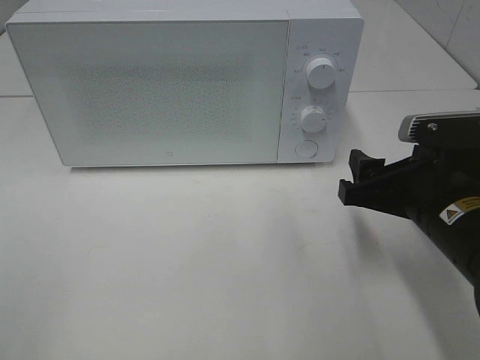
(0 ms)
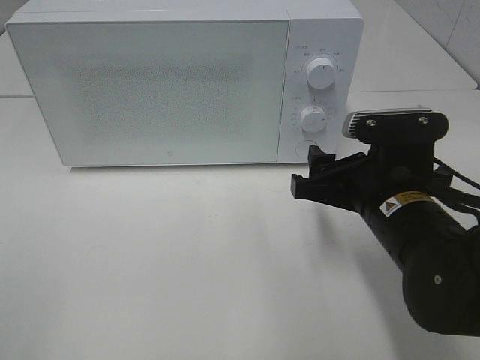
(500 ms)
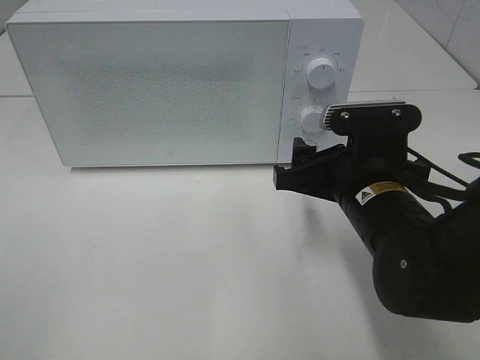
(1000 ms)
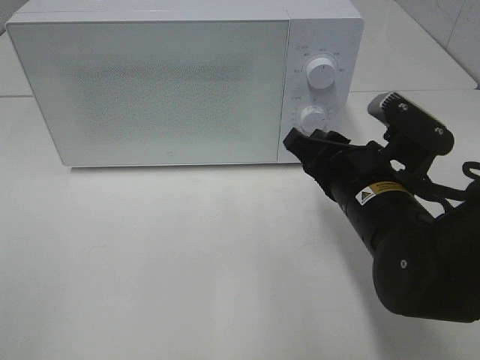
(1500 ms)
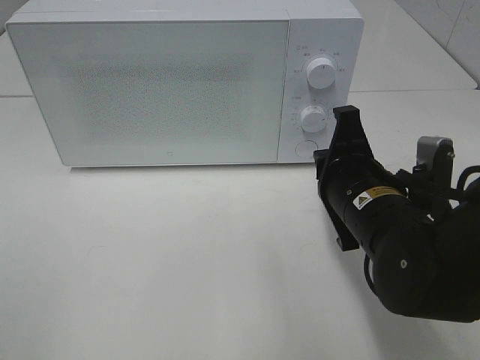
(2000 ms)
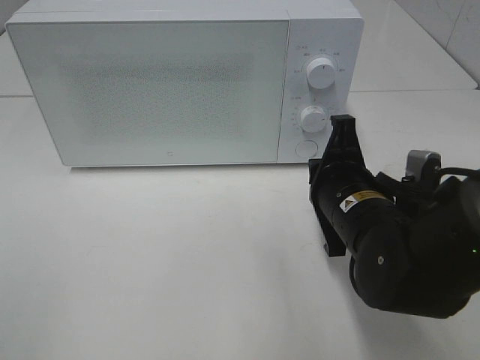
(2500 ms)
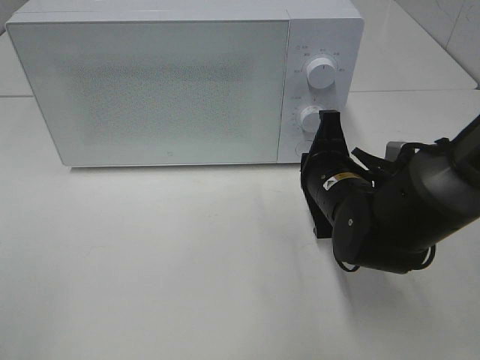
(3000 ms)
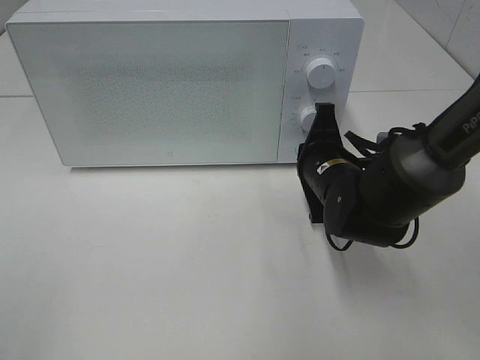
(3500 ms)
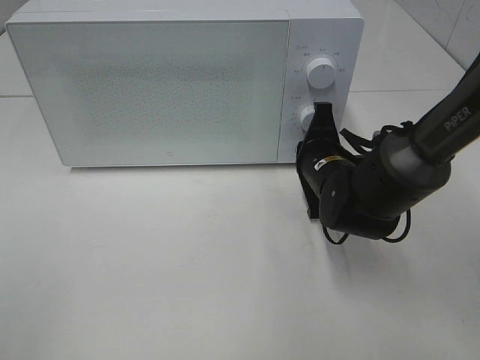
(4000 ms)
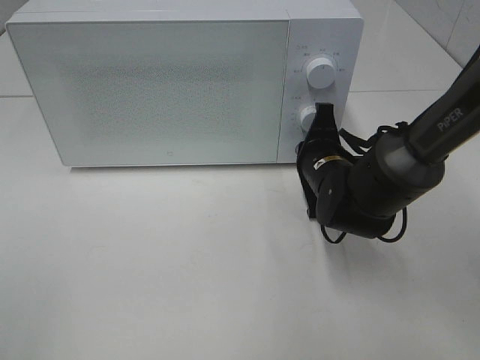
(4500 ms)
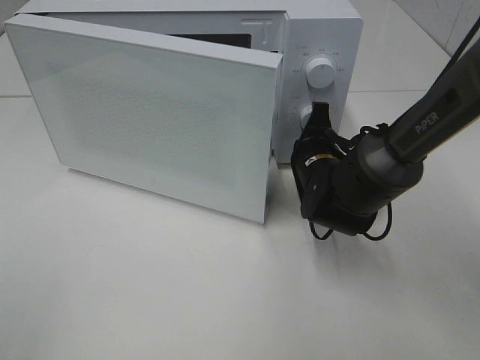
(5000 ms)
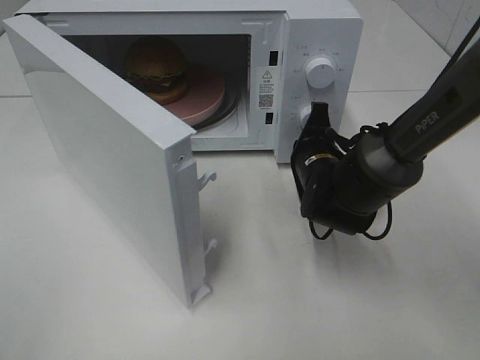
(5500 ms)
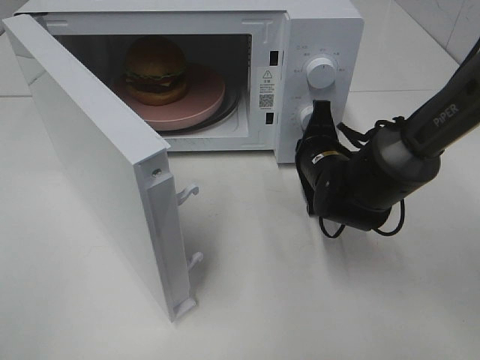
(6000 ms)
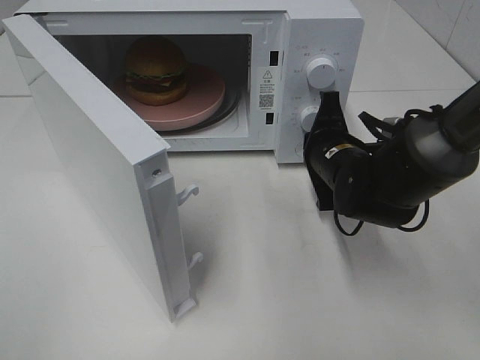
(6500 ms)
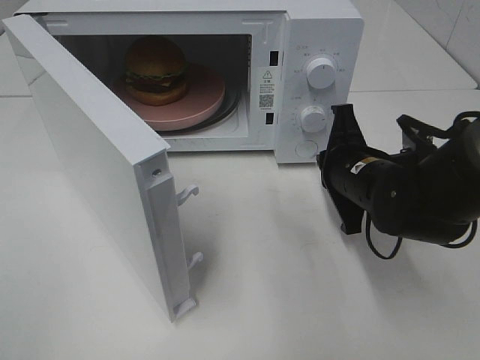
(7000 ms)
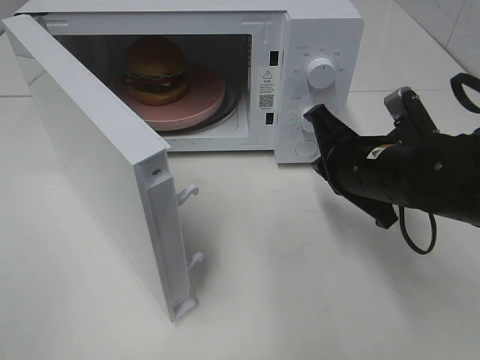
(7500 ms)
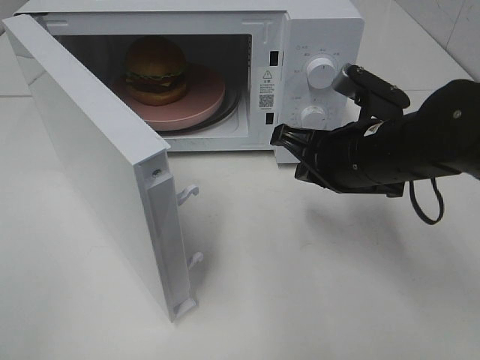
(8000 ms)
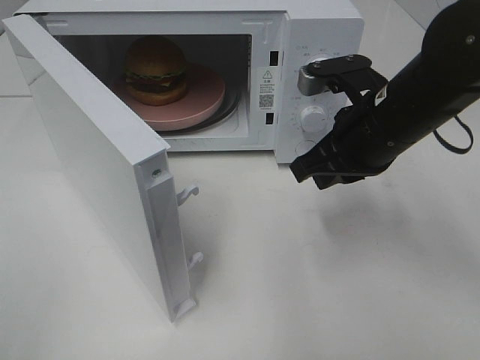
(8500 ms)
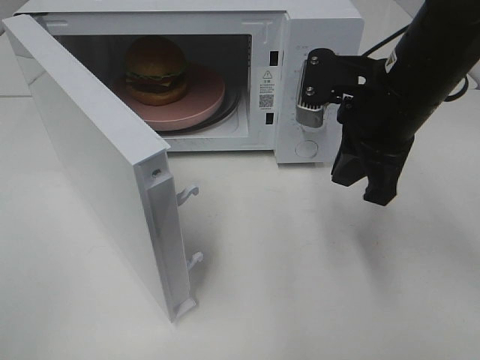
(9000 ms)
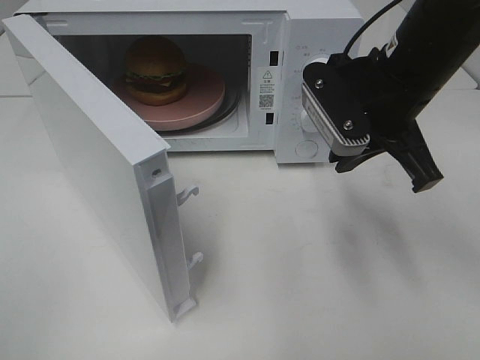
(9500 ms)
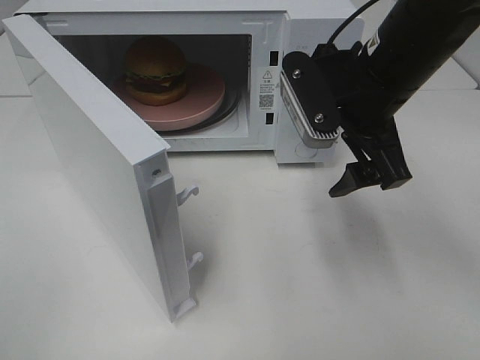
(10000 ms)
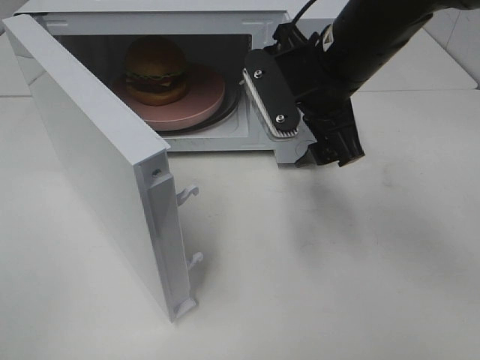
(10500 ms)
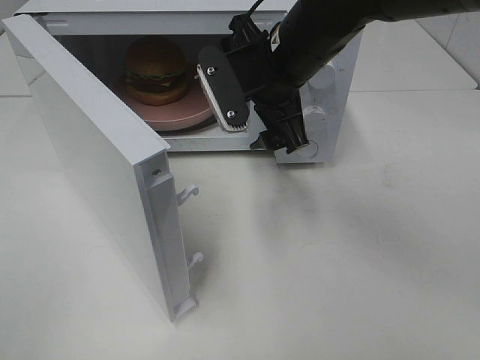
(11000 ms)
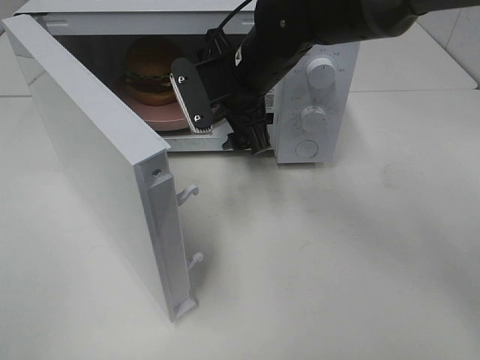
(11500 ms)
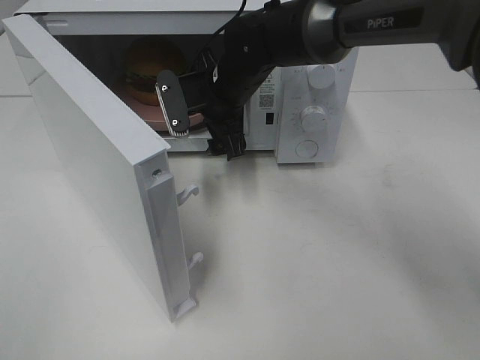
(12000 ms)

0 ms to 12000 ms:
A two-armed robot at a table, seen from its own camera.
Task of the whole recording: Heat the burger.
Step, 0 ms to 7000 ms: Right hand: press the switch.
0 ms to 2000 ms: The right gripper moves to the left, some 5 cm, and closes its fingers.
2000 ms to 4000 ms: The right gripper is displaced forward and downward by approximately 10 cm.
6000 ms to 8000 ms: The right gripper heads upward and backward, covering some 10 cm.
8000 ms to 10000 ms: The right gripper travels upward by about 10 cm, and opens its fingers.
10000 ms to 12000 ms: The right gripper travels to the left, forward and downward by some 20 cm.

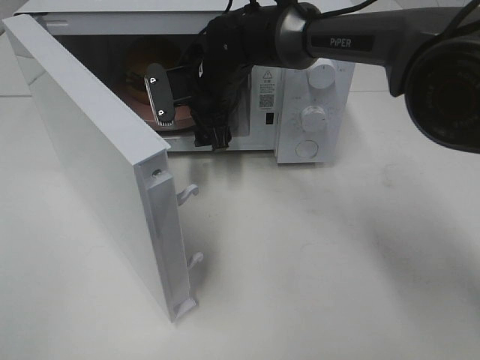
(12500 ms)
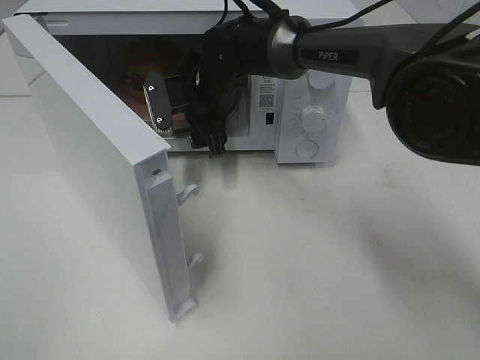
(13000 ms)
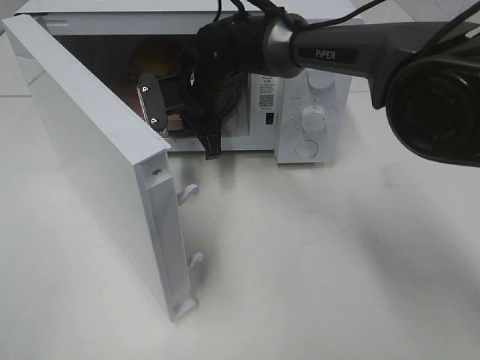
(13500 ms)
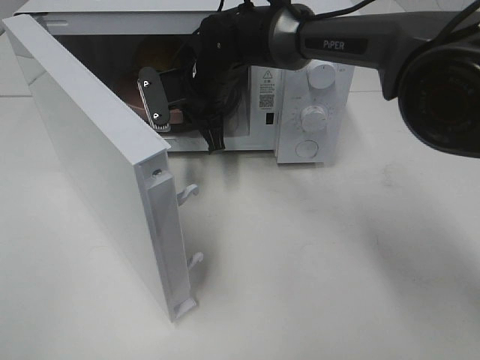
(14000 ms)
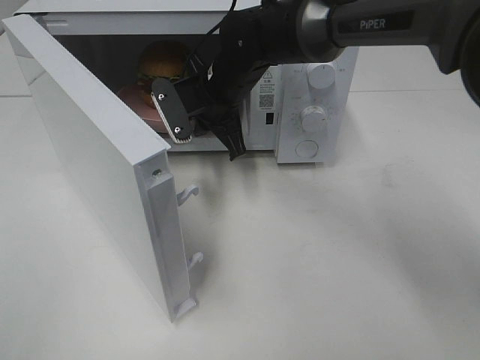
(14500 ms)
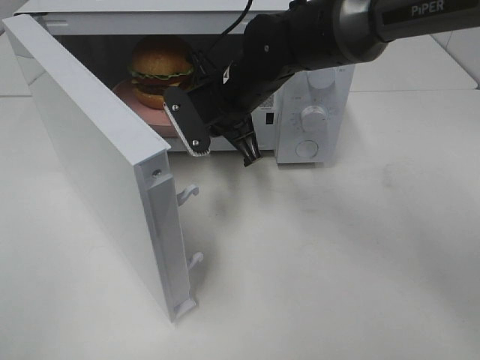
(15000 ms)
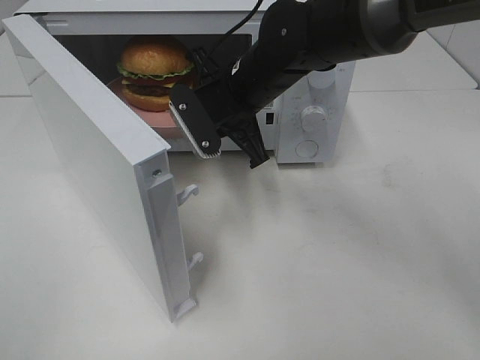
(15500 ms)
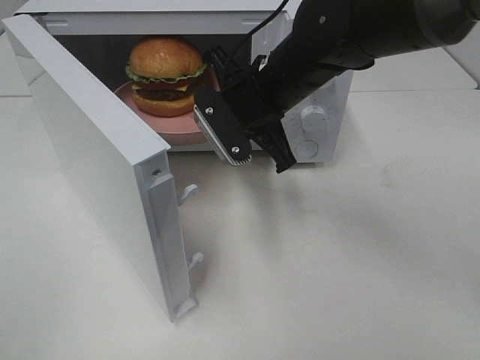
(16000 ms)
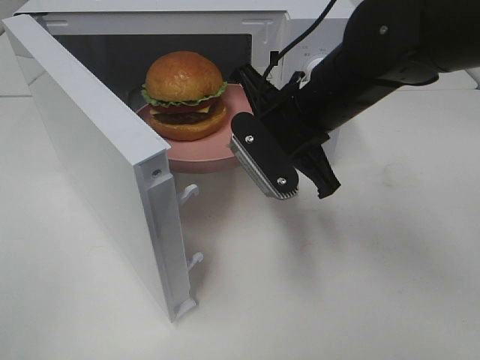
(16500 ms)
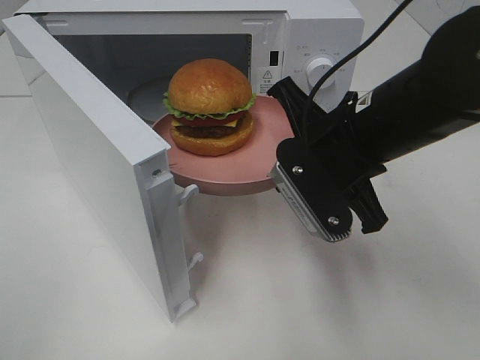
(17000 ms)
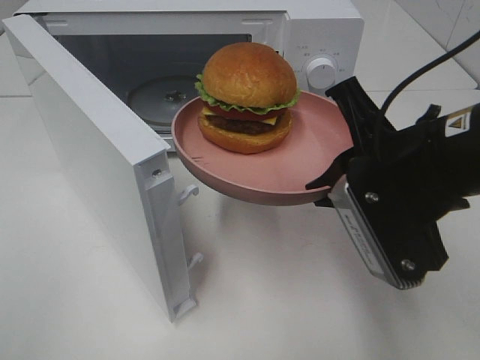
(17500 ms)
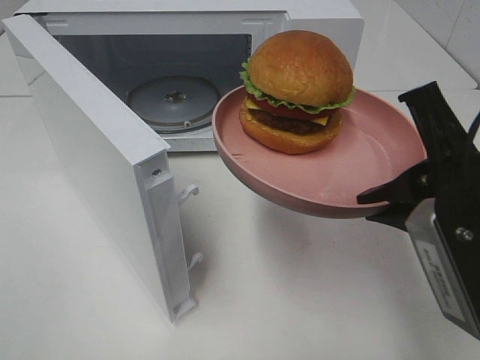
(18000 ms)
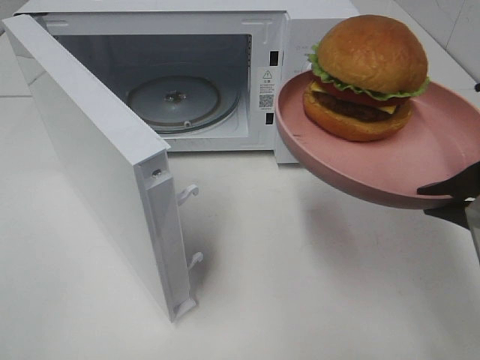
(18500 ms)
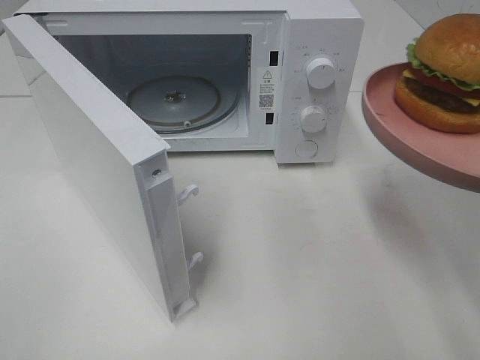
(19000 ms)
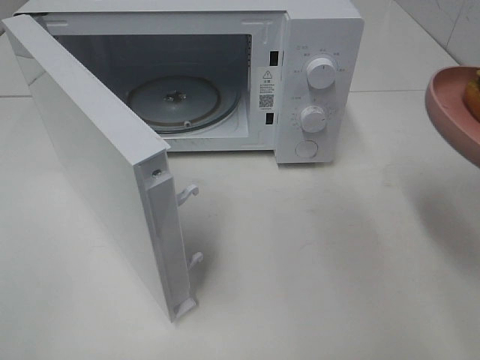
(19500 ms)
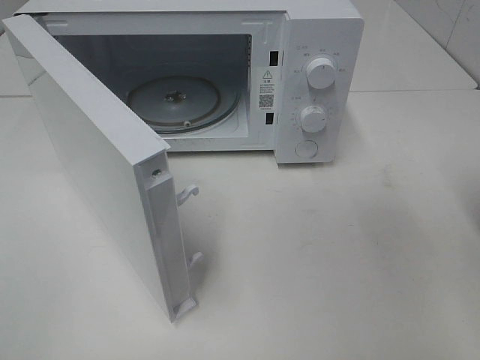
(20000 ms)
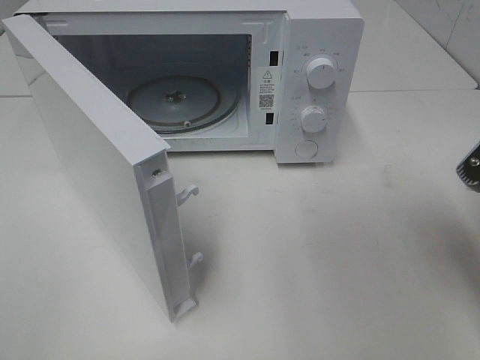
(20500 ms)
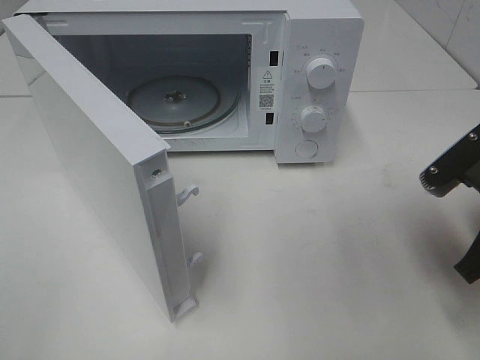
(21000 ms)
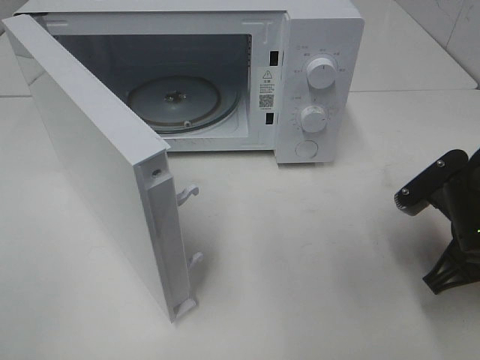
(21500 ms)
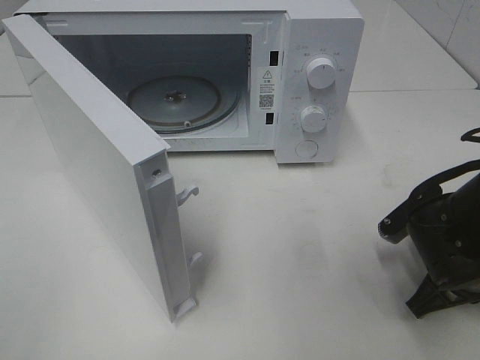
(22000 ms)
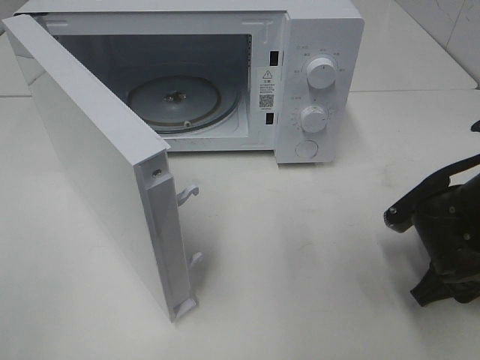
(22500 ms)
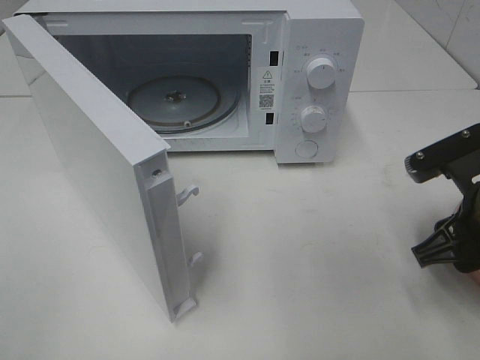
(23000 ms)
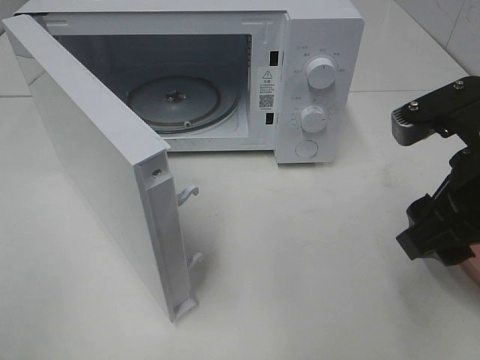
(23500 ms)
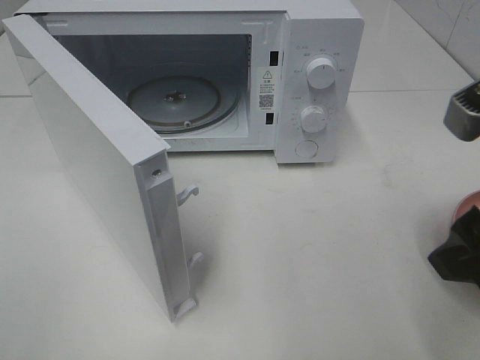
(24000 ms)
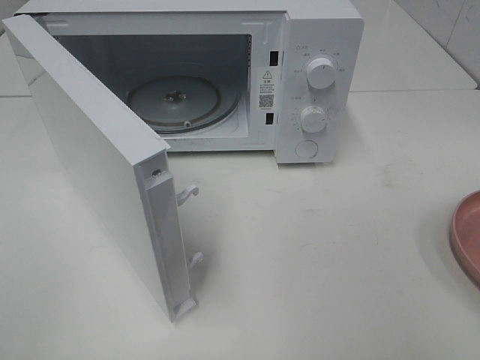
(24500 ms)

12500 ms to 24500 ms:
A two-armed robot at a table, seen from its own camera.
Task of the whole recording: Heat the burger.
Step, 14000 ms to 22500 ms: Right hand: place the plate on the table.
12500 ms to 14500 ms: The right gripper closes up.
14500 ms to 16500 ms: The right gripper is displaced backward and to the right by some 15 cm.
16500 ms to 18500 ms: The right gripper travels backward and to the right by approximately 20 cm.
18500 ms to 20500 ms: The right gripper moves downward, some 5 cm.
20500 ms to 22500 ms: The right gripper shifts approximately 10 cm downward, and opens its fingers.
22500 ms to 24500 ms: The right gripper moves upward and backward, approximately 25 cm.

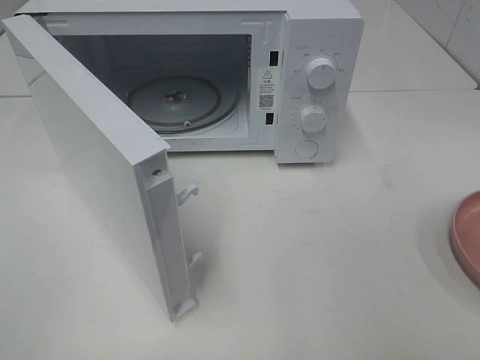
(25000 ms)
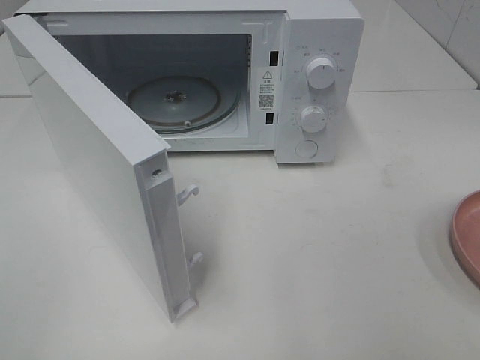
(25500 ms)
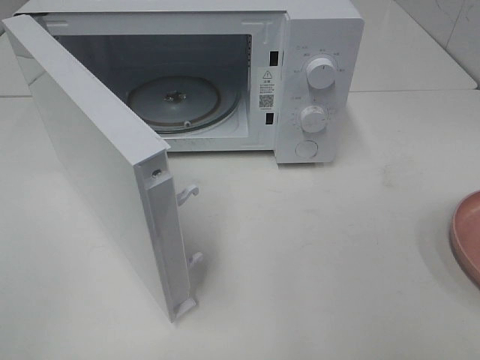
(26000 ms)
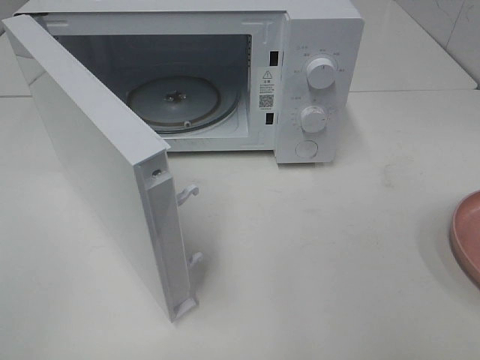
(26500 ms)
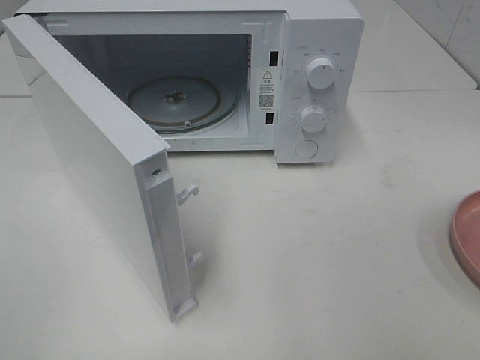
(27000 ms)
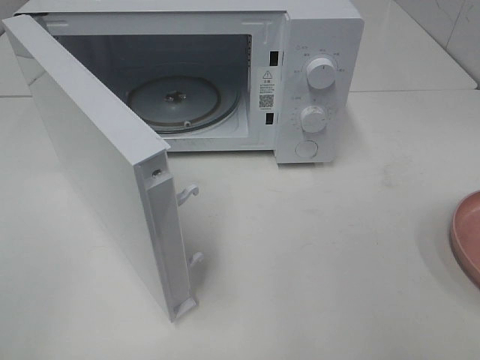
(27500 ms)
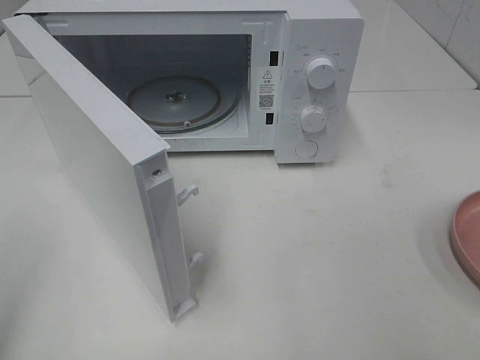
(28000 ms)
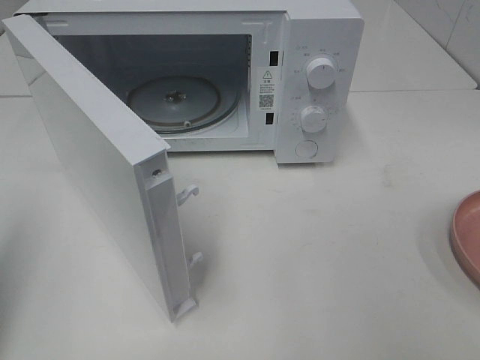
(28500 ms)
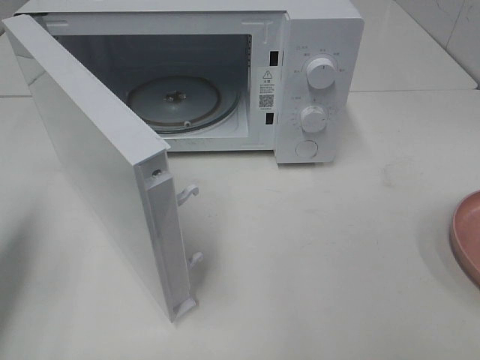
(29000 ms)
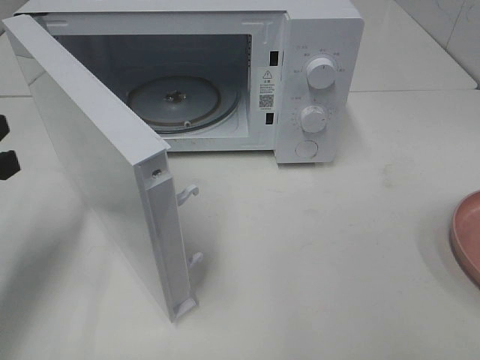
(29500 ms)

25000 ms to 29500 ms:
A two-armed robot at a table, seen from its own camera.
Task of the whole recording: Heat the burger.
27000 ms to 29500 ms: The left gripper goes approximately 25 cm forward and downward, and closes its fingers.
